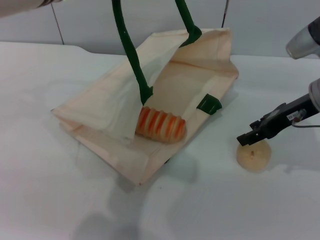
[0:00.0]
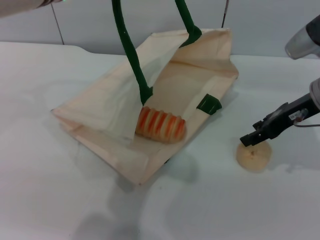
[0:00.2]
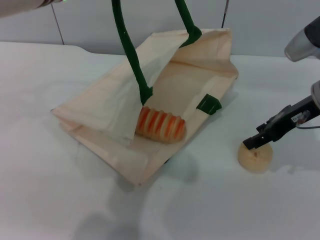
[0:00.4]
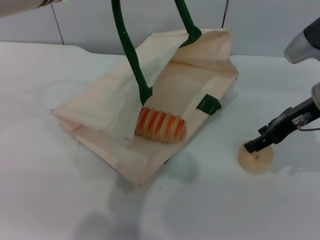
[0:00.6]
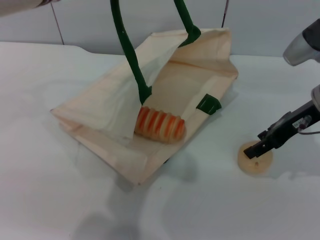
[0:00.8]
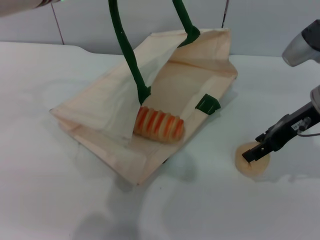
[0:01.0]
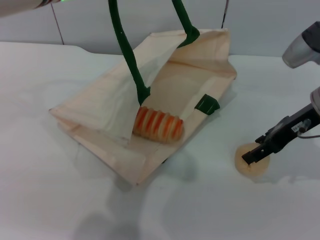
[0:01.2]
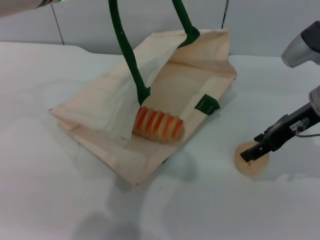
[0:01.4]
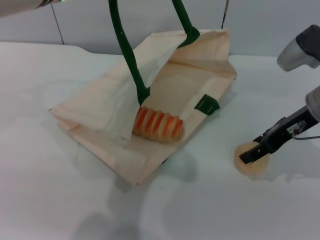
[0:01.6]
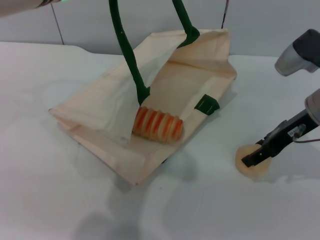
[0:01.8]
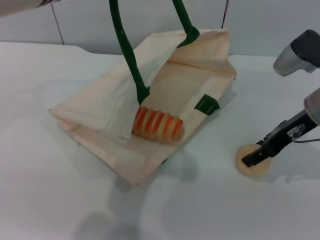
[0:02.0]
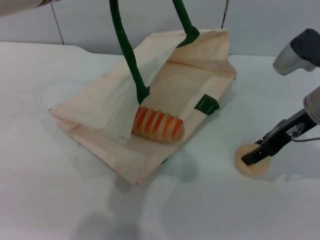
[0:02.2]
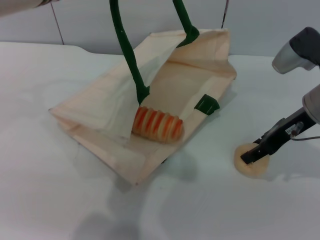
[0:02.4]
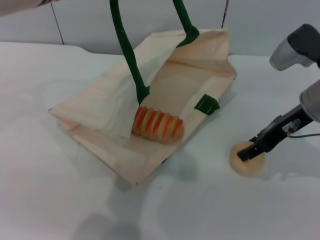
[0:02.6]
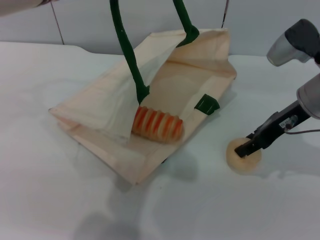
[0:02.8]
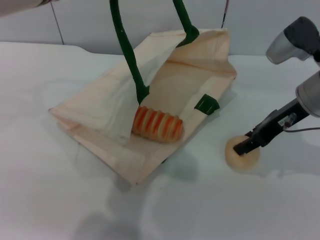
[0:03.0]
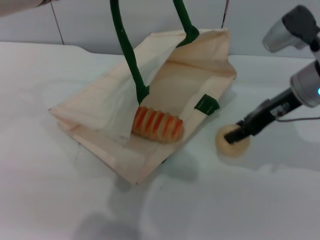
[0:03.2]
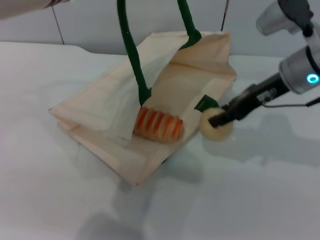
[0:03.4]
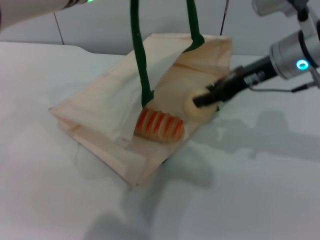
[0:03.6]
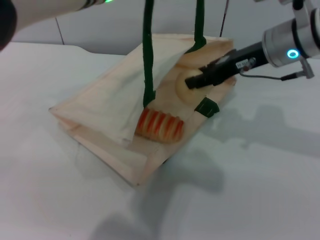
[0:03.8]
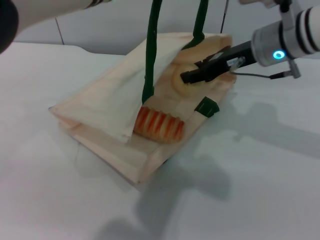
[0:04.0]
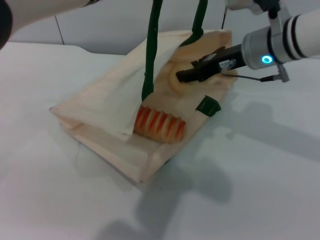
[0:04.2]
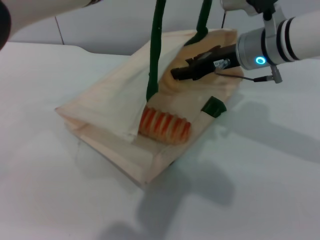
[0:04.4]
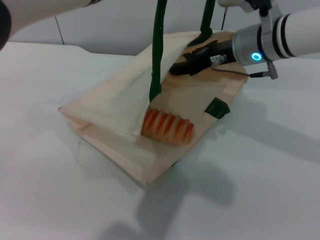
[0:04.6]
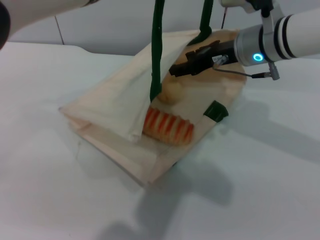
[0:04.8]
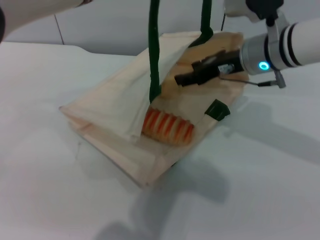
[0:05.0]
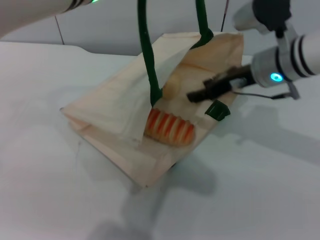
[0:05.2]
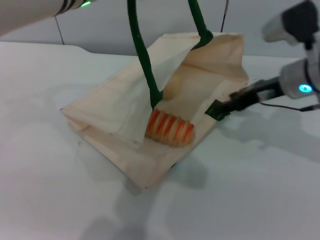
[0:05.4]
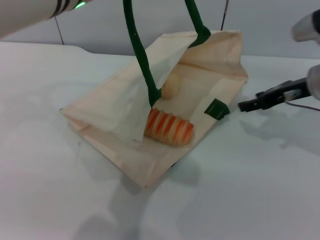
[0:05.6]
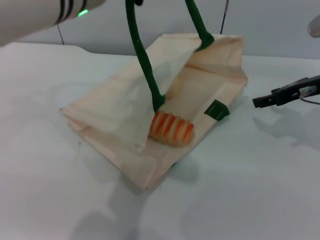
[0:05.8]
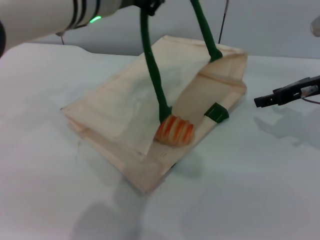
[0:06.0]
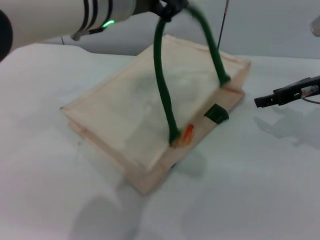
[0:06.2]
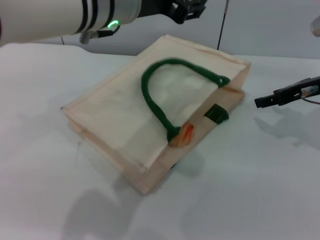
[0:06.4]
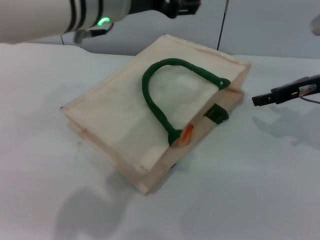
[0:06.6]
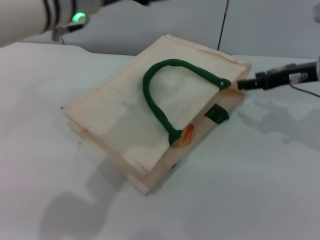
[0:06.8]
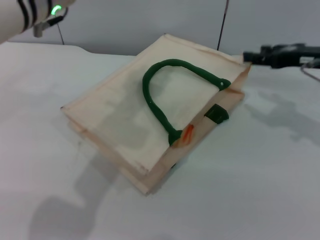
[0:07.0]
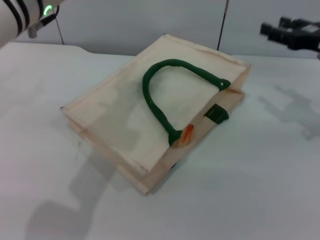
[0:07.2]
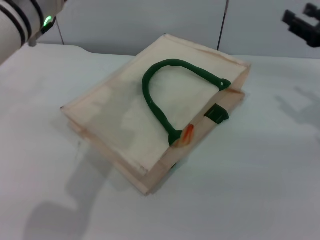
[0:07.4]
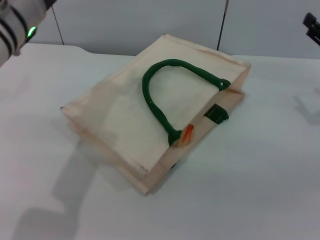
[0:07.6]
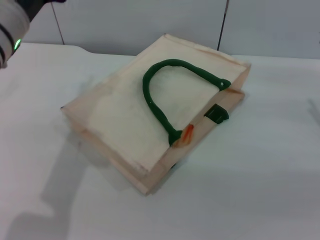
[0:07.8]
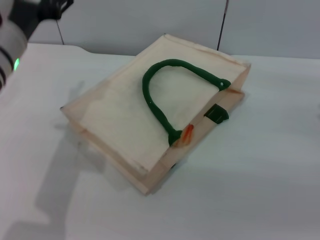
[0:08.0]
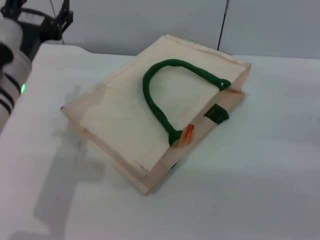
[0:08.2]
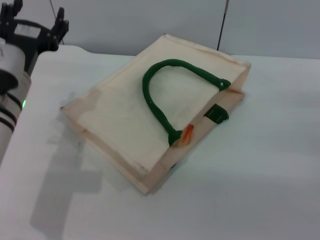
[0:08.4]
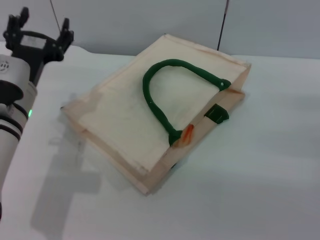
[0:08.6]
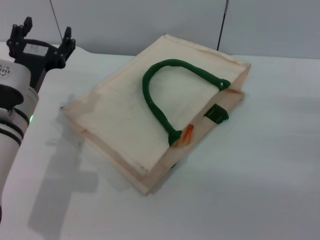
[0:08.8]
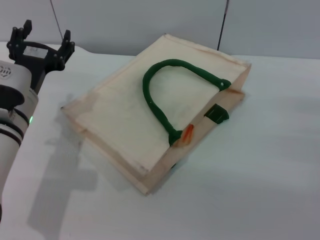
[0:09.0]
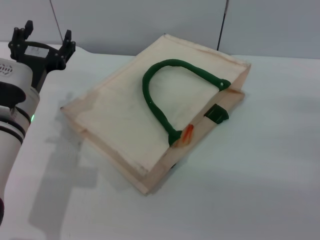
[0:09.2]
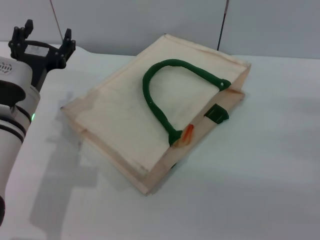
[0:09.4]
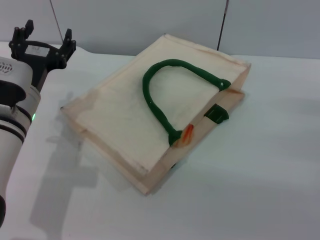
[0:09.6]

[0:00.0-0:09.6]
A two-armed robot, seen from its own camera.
Task of the whole recording: pick up the bread and egg yolk pastry from the table and place it in the white handbag.
Step, 0:00.0 to 0:03.2: Pick up the egg yolk pastry with the right gripper.
Step, 0:03.4 to 0:05.4: Place the egg yolk pastry into the woven bag with the right gripper.
Step, 0:05.8 to 0:06.4: Lower the woven bag with the left gripper to close it.
0:00.0 to 0:01.6: The grippers stay close to where they were, moving slightly.
0:01.6 to 0:03.2: The right gripper closes up.
0:03.2 to 0:04.8: The left gripper shifts by roughly 5 cm. Meanwhile the right gripper is displaced to the left by roughly 5 cm.
0:04.8 to 0:06.4: The left gripper shifts about 5 cm downward, and opens its fingers. The right gripper shifts about 15 cm to the right.
0:06.4 to 0:08.0: The left gripper is displaced to the left and downward by about 15 cm, and opens up; the right gripper is displaced backward, to the right and downward by about 15 cm.
0:08.0 to 0:09.6: The left gripper heads downward, covering approximately 10 cm.
